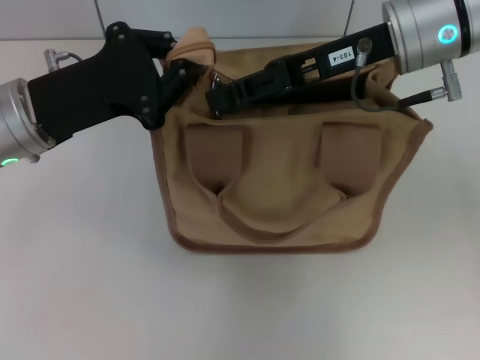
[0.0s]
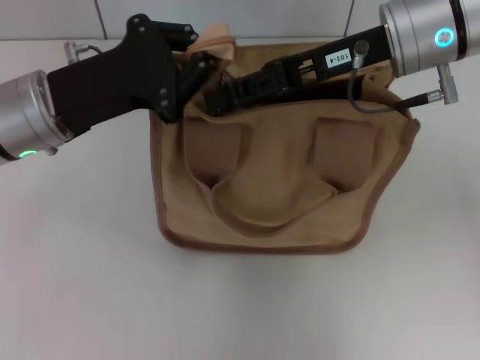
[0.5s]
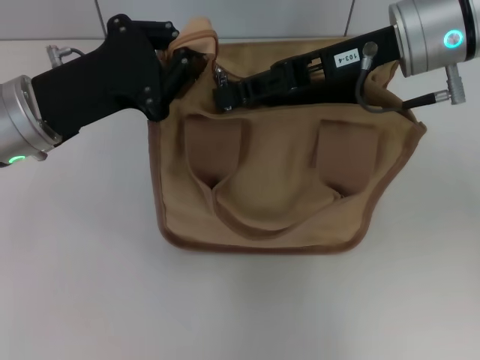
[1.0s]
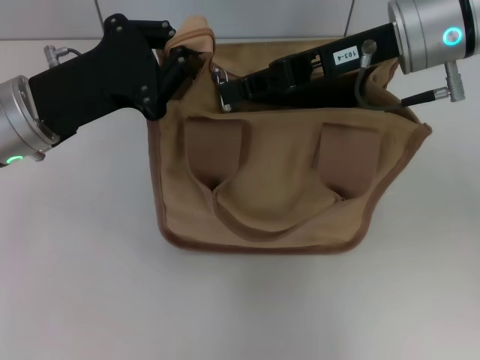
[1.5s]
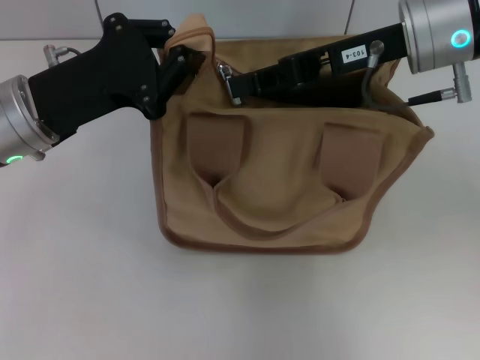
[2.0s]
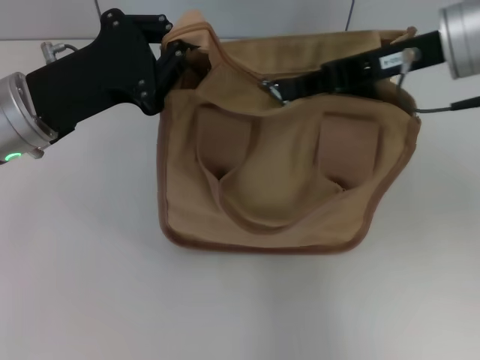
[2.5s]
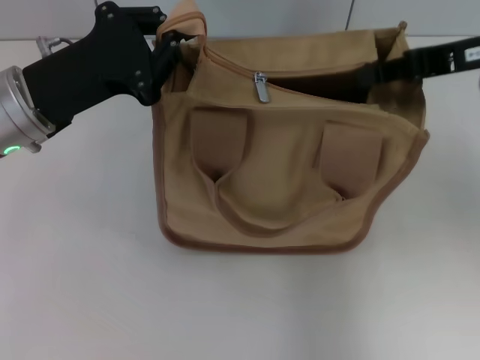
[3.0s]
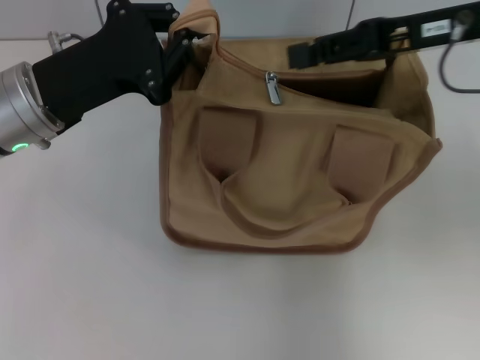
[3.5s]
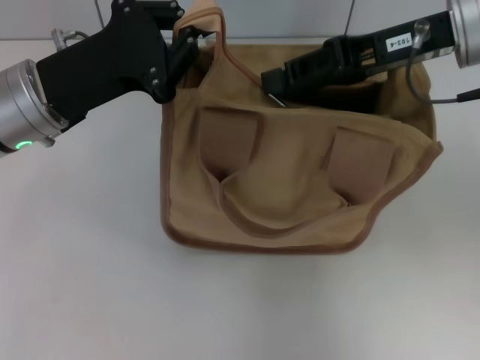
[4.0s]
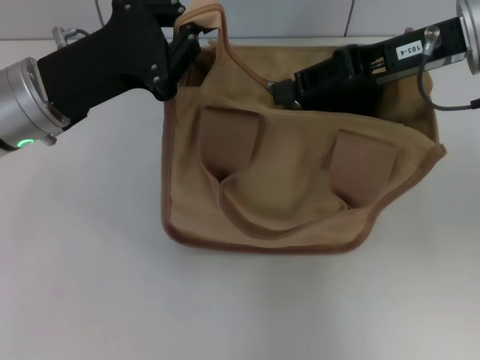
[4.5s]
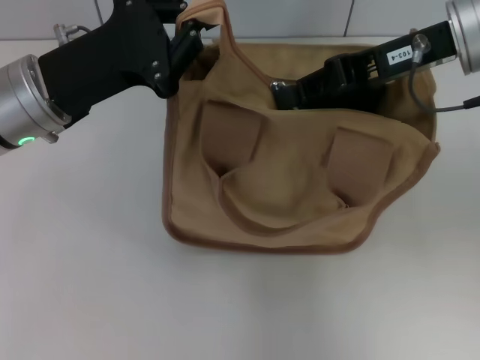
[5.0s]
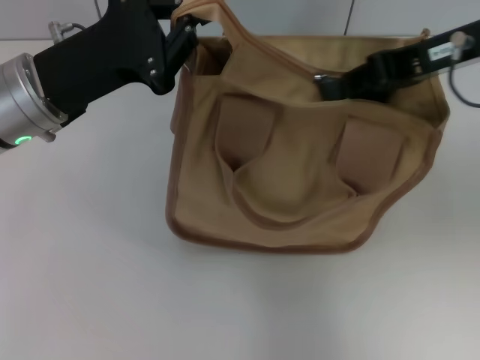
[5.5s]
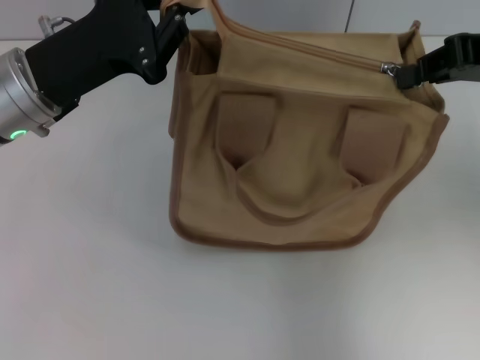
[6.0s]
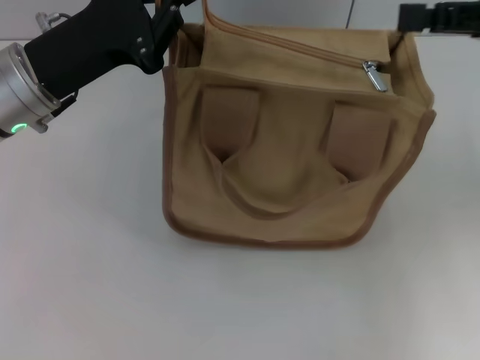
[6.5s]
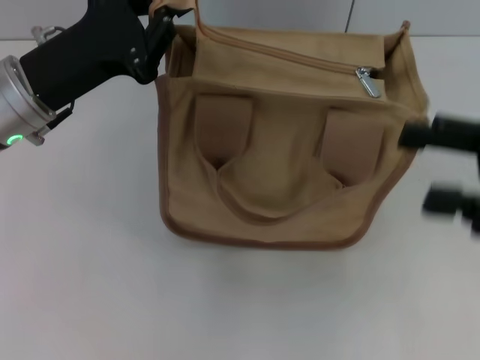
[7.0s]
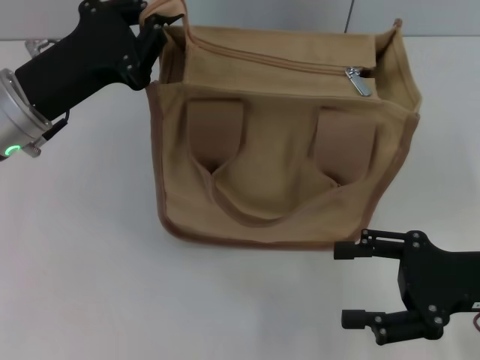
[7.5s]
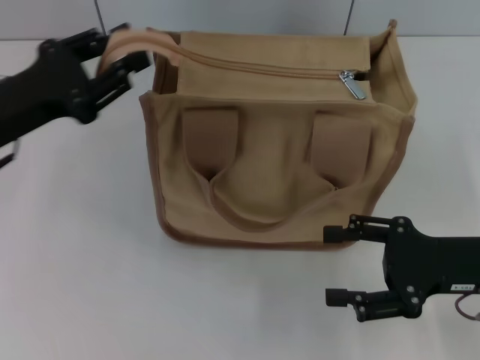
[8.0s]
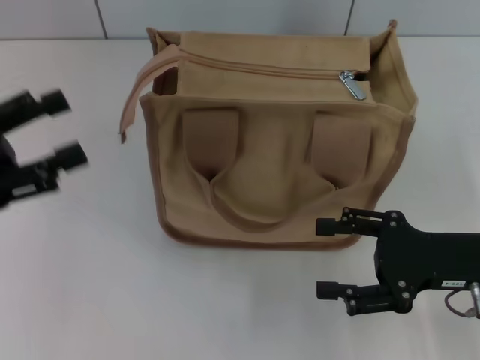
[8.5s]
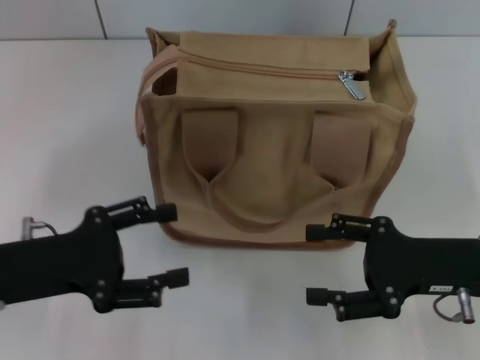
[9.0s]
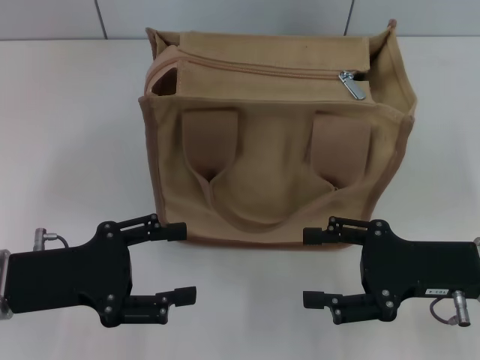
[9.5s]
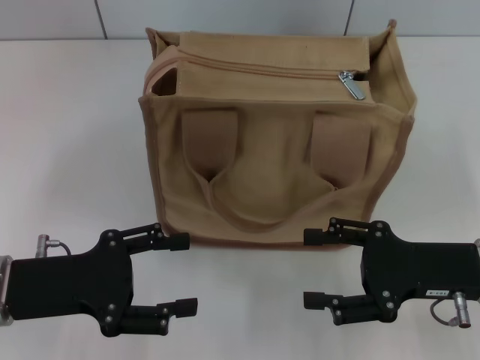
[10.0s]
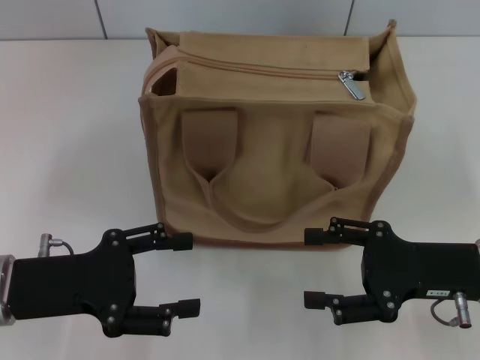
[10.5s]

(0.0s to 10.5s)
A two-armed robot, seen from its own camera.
Step, 0.0s - 6.0s: Pull up the zipper with your right hand.
Step, 6.5s - 8.0s: Grab the zipper with your left hand.
0.0s - 2.0s: The right gripper closes up.
2.0s - 4.0s: The right gripper travels to the right and back again, some 10 cm each way, and opens up.
4.0s - 6.5s: The right gripper moves to the right and backward, some 10 cm.
6.5s - 8.5s: The right gripper travels downward and backward by roughly 20 cm, and opens its fingers, while the left gripper moves to the left and backward, some 15 cm, and opens its fingers.
8.5s - 10.5s: The left gripper shifts about 10 cm to the right and downward.
